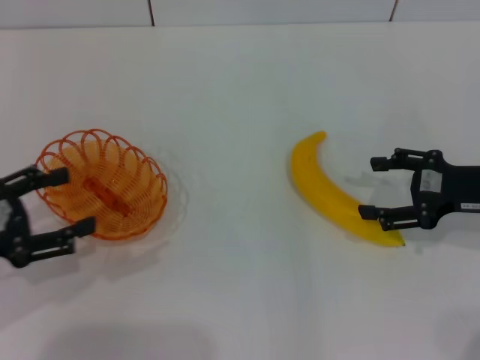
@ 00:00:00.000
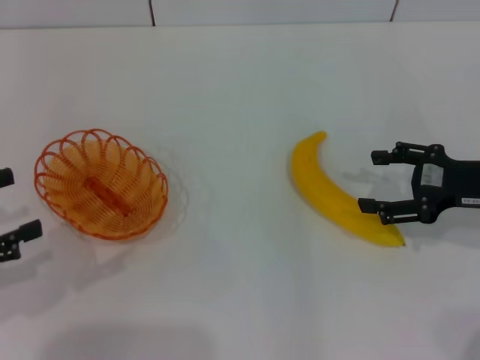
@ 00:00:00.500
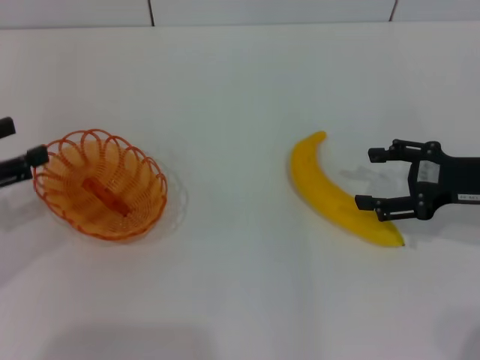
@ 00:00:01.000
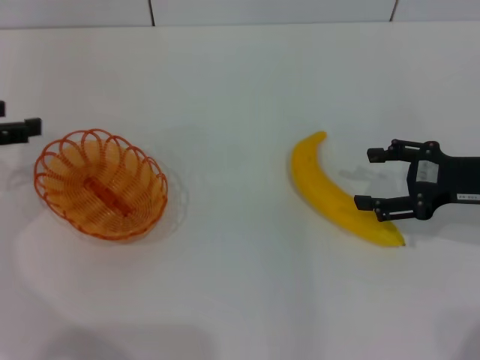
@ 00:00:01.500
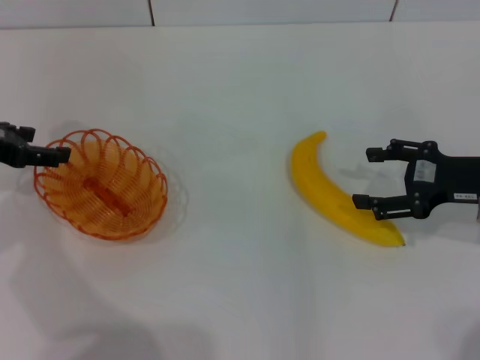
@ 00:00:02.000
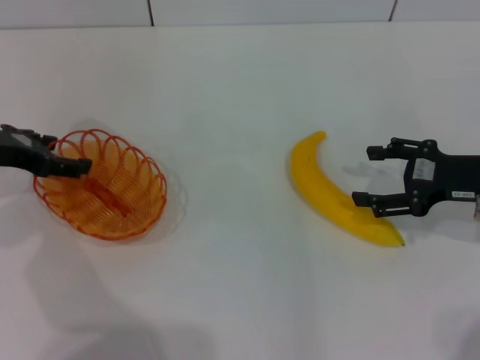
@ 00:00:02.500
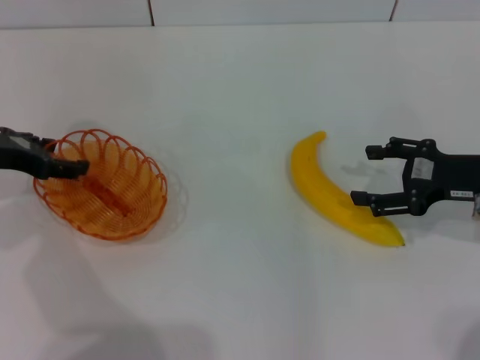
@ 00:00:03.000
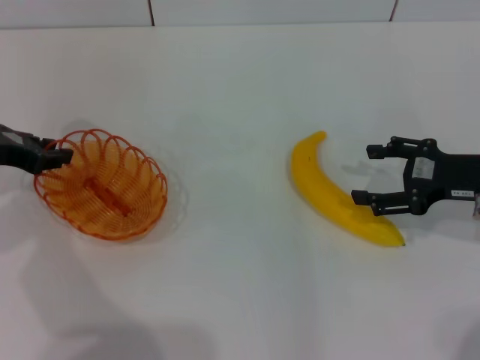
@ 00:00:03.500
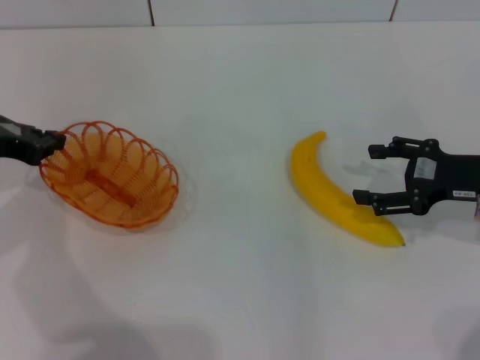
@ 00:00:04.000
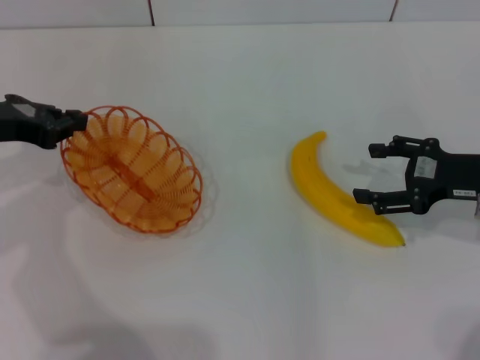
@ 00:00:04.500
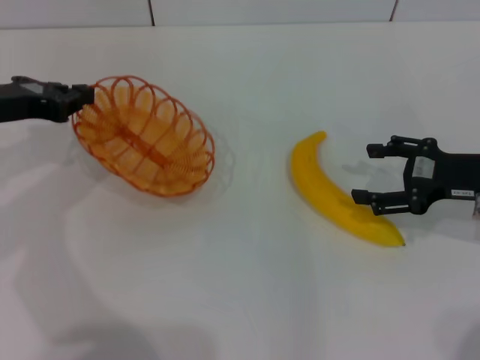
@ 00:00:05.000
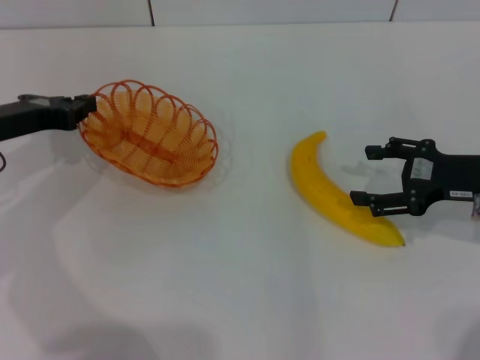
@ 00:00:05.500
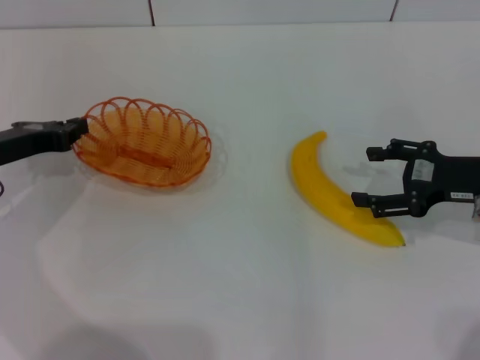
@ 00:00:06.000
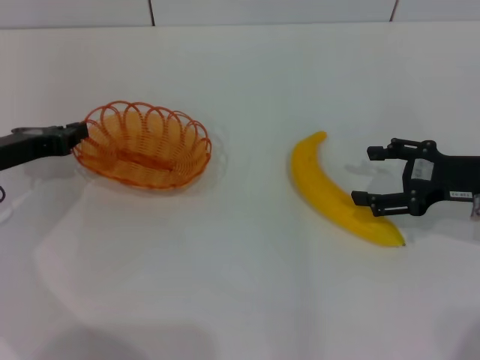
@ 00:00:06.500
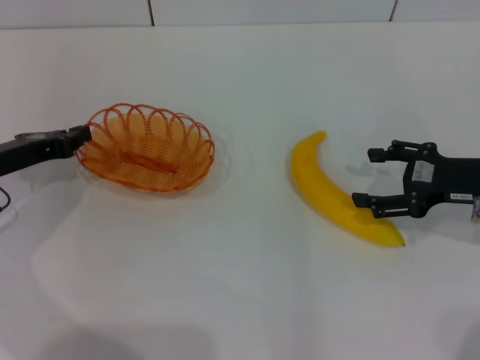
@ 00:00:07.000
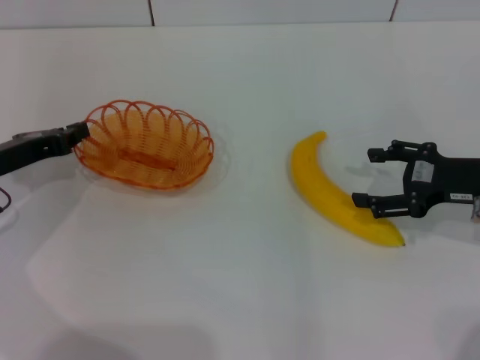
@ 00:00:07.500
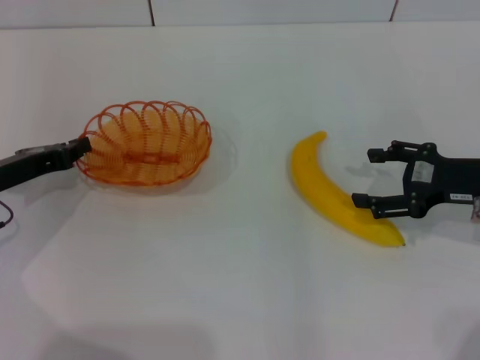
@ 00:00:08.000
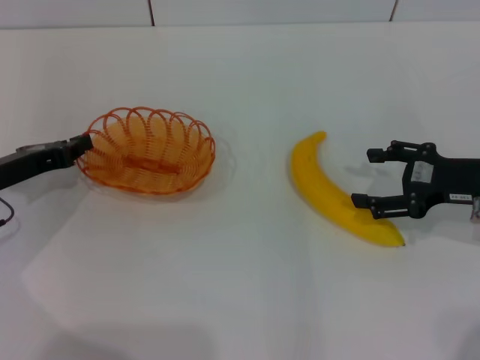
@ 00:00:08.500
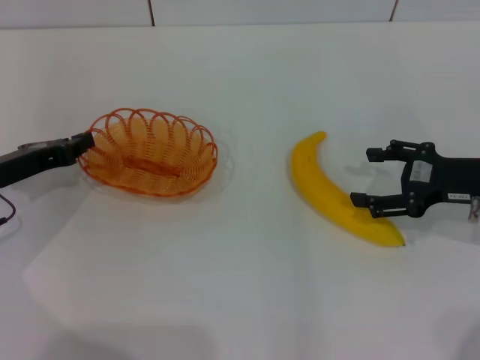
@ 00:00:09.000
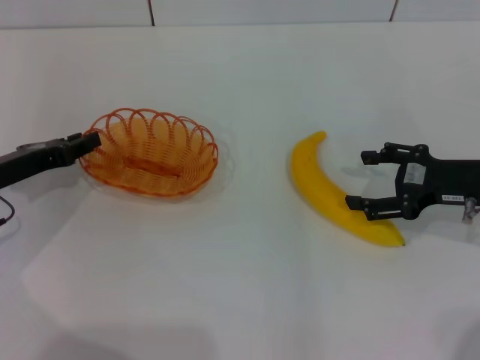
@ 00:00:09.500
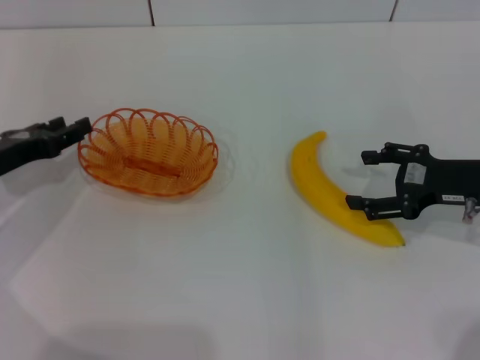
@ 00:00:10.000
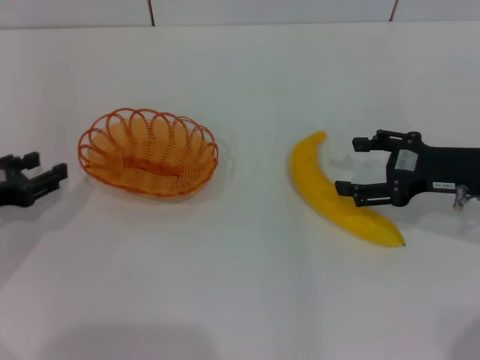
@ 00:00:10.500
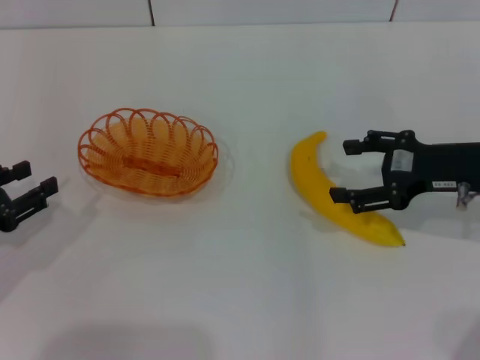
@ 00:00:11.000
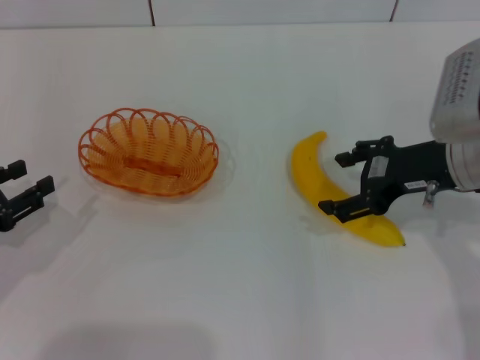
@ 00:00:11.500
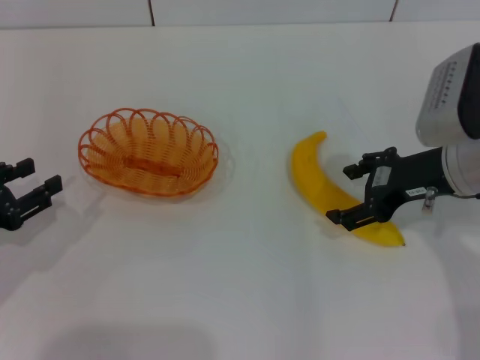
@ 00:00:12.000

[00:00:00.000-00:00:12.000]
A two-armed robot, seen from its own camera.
Step, 00:00:00.000 to 00:00:04.000: Pick up the basket with the left gripper.
Step, 00:00:04.500 to 00:00:10.500: Place the basket in the center of view with the left gripper.
00:00:00.000 to 00:00:02.000: The left gripper shifts some 10 cm forward.
00:00:02.000 to 00:00:04.000: The left gripper closes up.
00:00:06.000 to 00:00:08.000: There are only small adjustments of the grippers.
00:00:08.000 to 00:00:10.000: The left gripper opens.
00:00:10.000 to 00:00:12.000: The right gripper travels to the left by approximately 5 cm, while the left gripper shifts roughly 5 cm backward.

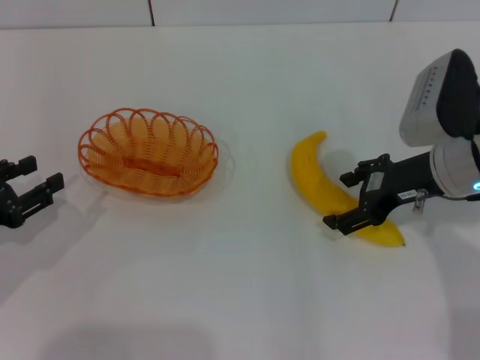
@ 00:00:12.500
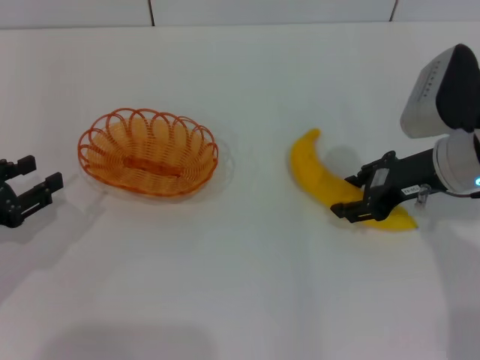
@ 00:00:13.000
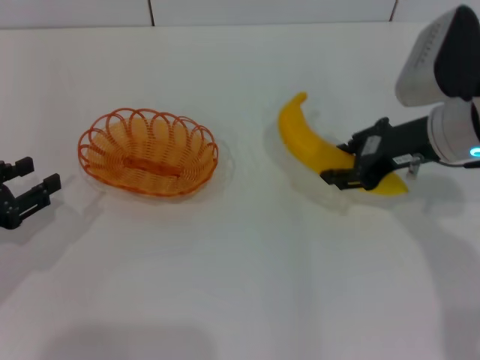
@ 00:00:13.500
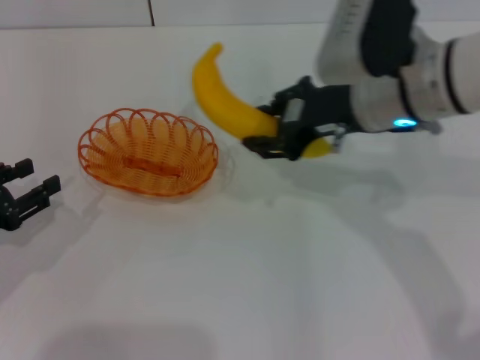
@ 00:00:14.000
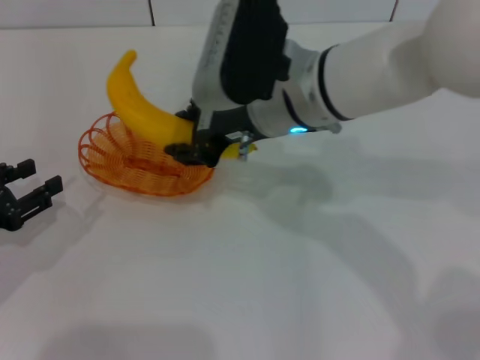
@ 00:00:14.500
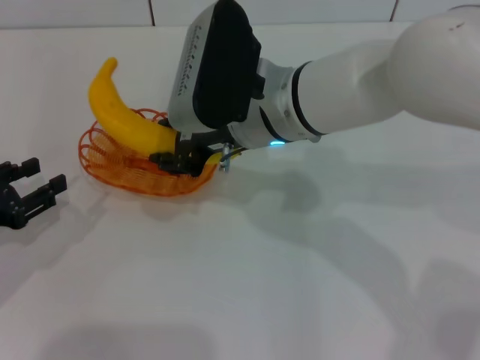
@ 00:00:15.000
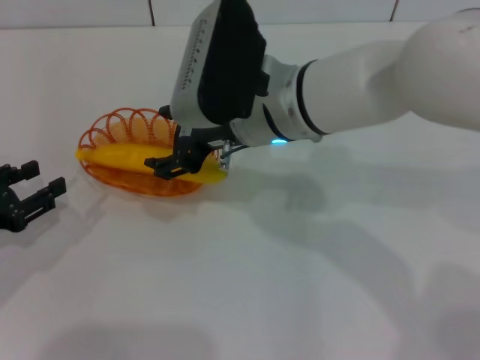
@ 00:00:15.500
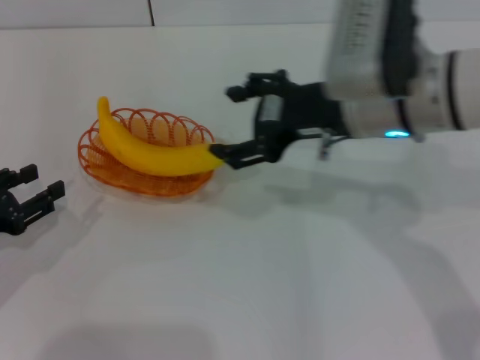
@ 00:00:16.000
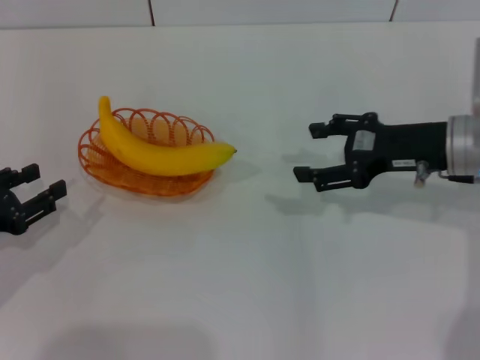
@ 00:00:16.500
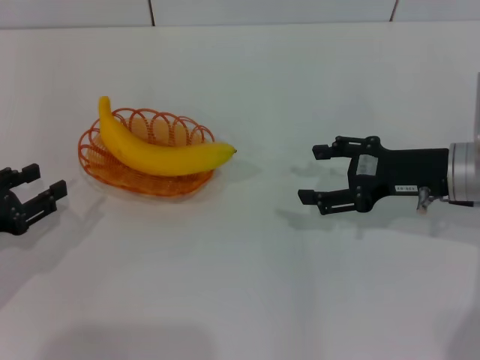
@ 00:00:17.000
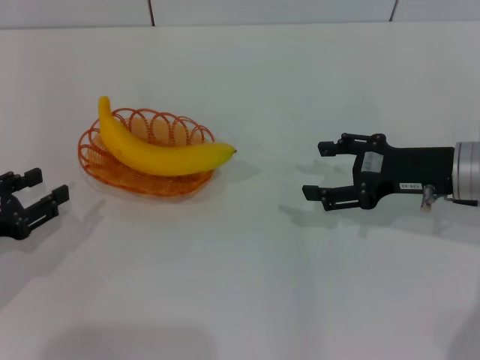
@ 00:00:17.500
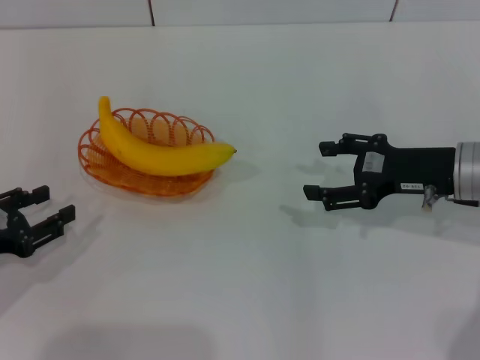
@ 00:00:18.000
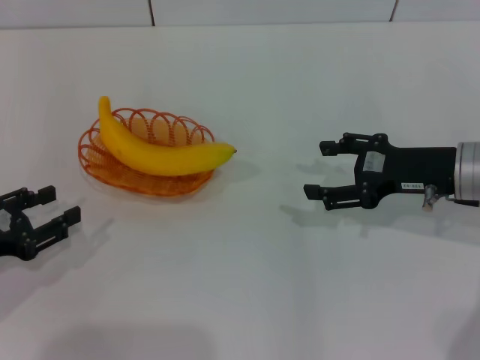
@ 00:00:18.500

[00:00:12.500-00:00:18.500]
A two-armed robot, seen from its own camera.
Step, 00:00:14.000 to 00:00:16.000: Place the banana into the basket with the right gripper.
00:00:12.500 to 00:00:14.500: The right gripper travels to the left by roughly 15 cm, and closes up.
00:00:14.500 to 00:00:16.500: The right gripper travels to the right by some 20 cm, and opens up.
00:00:16.500 to 00:00:18.500: There are only small adjustments of the grippers.
